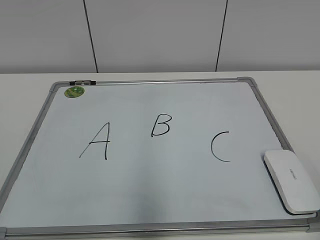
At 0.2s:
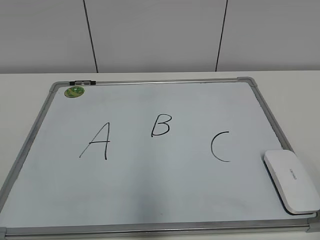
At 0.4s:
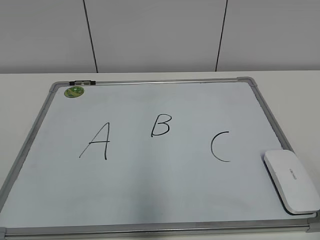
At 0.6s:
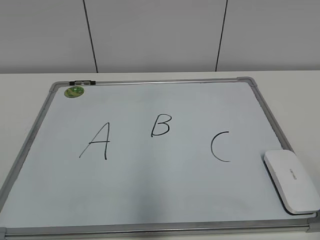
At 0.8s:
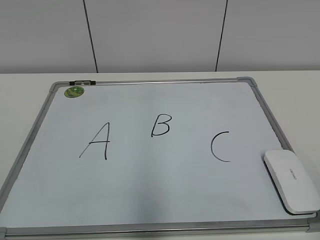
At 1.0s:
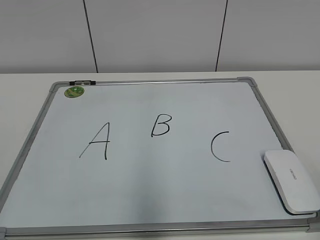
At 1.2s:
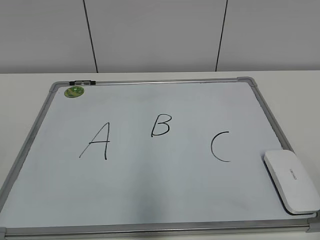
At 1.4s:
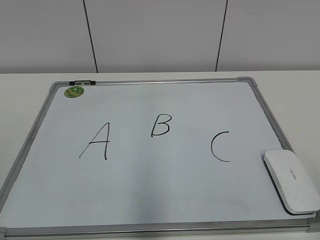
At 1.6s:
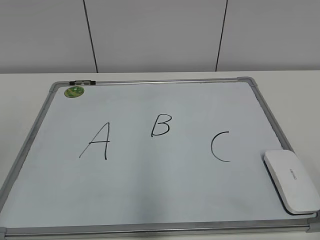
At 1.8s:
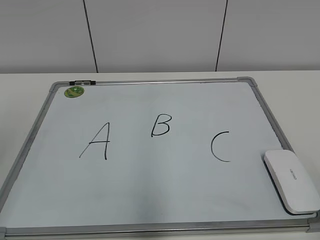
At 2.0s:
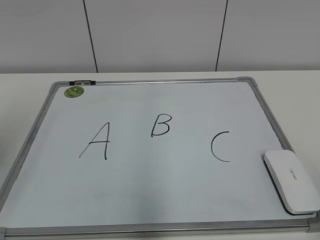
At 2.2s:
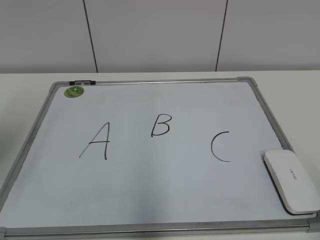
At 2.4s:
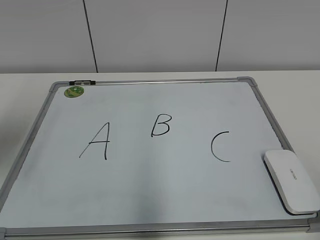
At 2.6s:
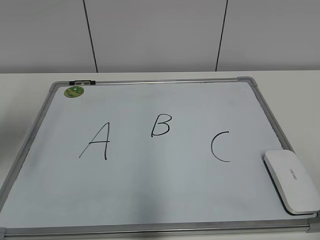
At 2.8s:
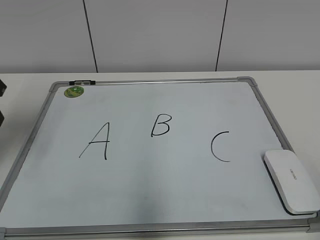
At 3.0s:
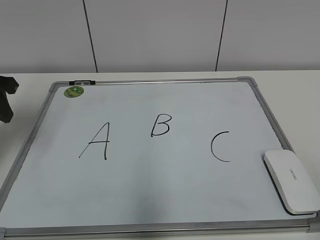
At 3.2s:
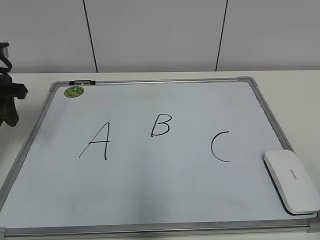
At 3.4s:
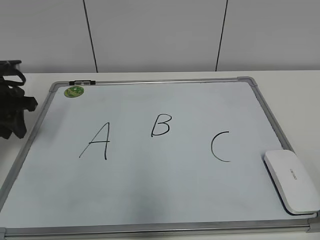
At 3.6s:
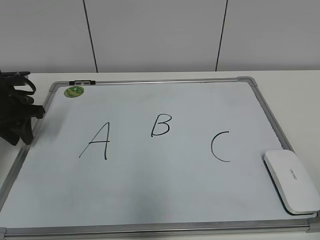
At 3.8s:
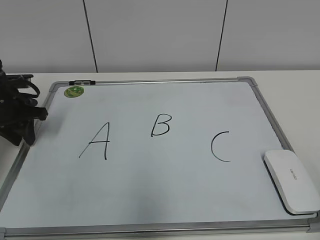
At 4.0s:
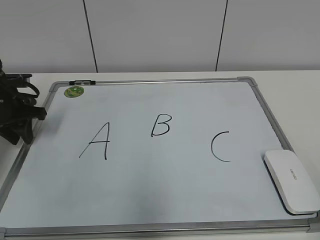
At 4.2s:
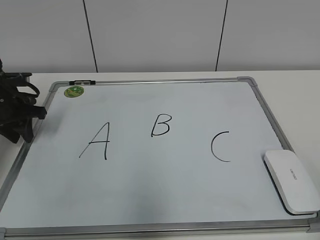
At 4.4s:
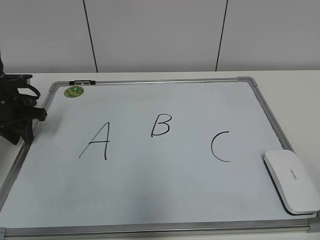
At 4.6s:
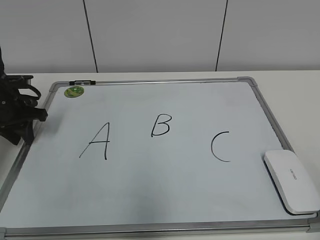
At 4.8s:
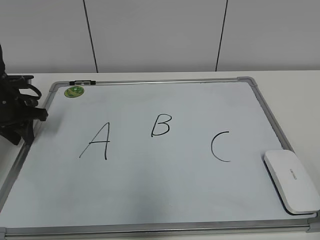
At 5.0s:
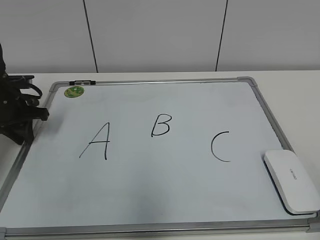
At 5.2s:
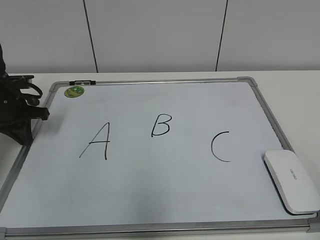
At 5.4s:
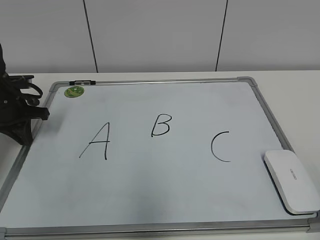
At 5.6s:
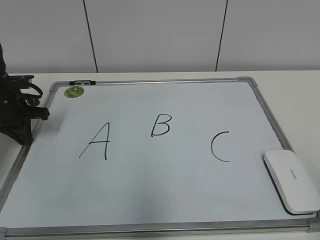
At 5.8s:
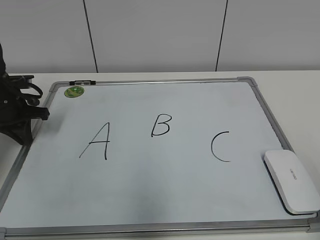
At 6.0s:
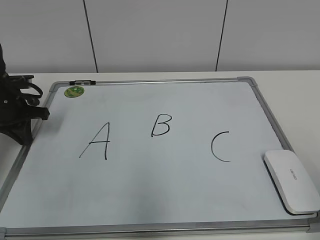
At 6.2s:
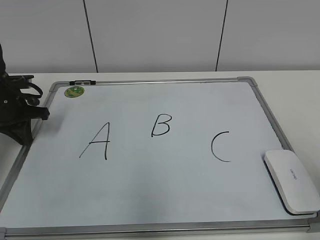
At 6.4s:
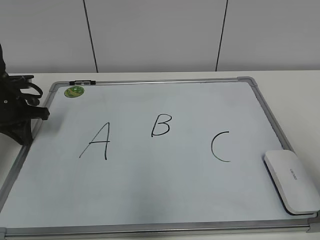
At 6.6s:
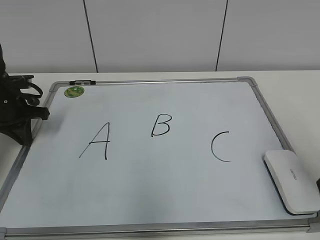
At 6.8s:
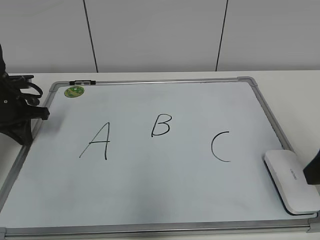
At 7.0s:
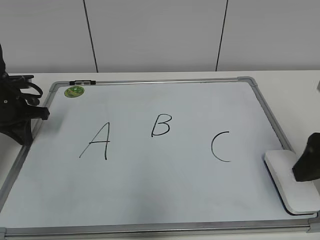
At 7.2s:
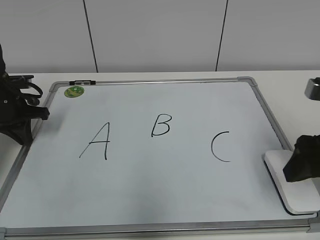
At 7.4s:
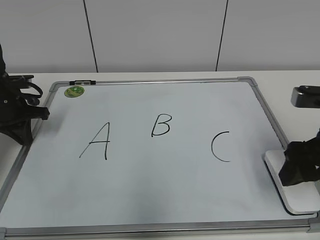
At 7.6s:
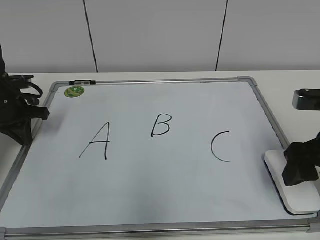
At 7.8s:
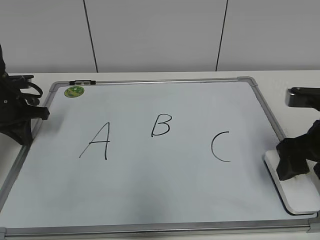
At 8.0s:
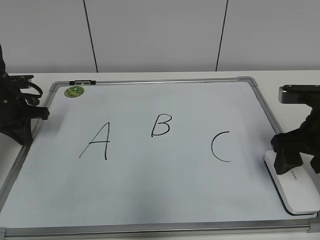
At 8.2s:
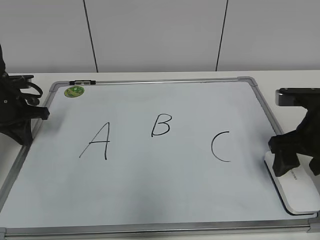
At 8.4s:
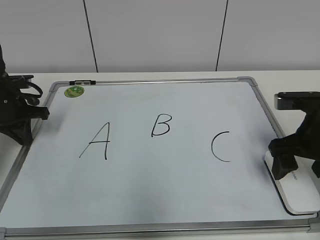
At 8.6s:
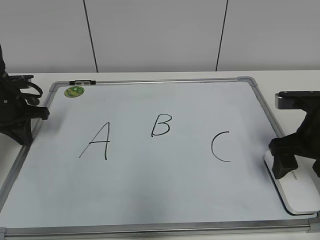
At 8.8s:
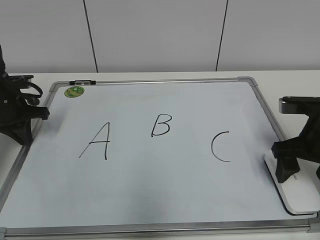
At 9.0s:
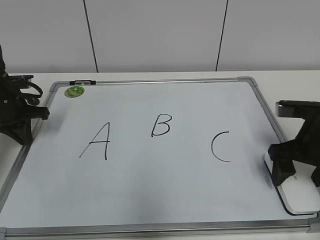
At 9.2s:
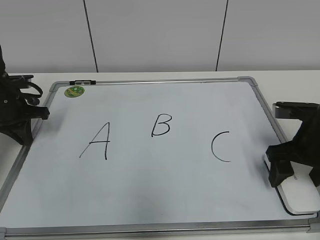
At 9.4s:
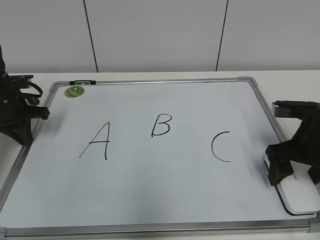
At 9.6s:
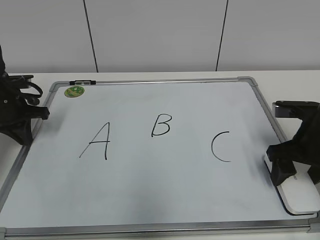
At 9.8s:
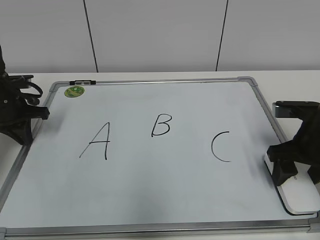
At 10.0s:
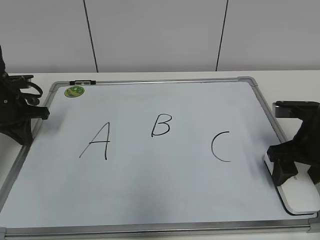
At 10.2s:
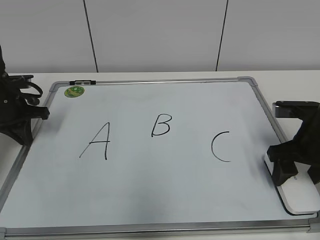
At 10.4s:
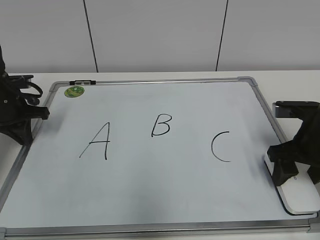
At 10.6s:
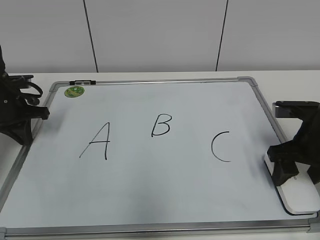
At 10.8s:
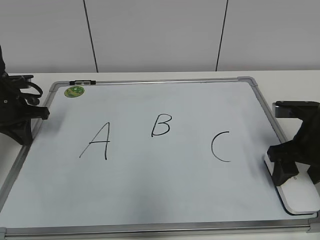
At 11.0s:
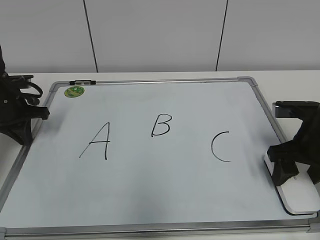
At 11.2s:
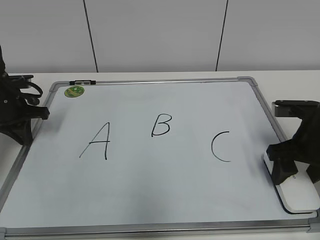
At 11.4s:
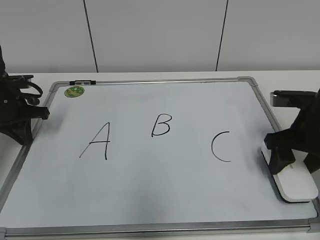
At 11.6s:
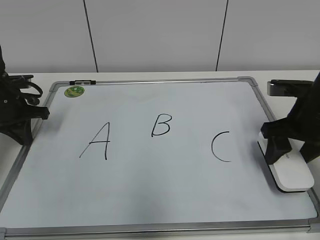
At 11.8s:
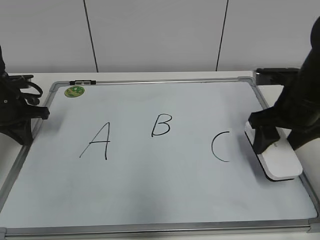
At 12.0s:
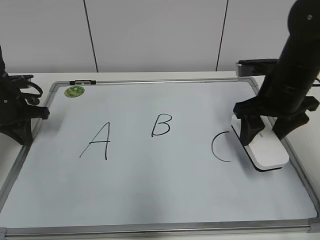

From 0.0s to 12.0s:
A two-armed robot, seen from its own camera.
Task of the whole recording: pick up the eraser on the blackboard and erase the letter "B".
Step, from 0.0s to 5.4s: Hold the drawing board steady with your left hand.
Step, from 5.6s to 10.4s: Grab the eraser with your right hand.
From 1.6s to 3.0s: The left gripper moves forward, some 25 cm.
From 3.0s to 4.4s: The left gripper travels downward and forward by about 15 cm.
From 4.4s to 6.0s: The left gripper closes its fingers.
From 6.0s to 7.6s: The right gripper heads forward, covering about 15 cm.
From 7.6s to 9.0s: The right gripper travels forward by approximately 5 cm, and opens up.
From 9.0s to 10.4s: The right gripper closes up.
From 10.4s to 12.0s: The right gripper goes some 10 cm upward, to the left and forward.

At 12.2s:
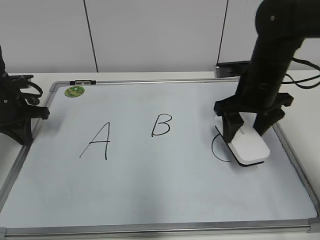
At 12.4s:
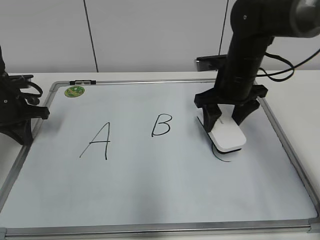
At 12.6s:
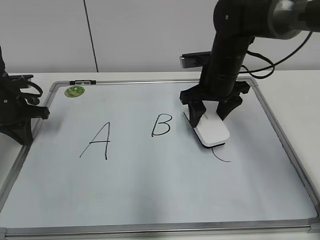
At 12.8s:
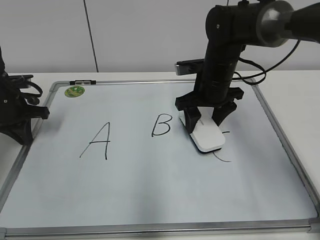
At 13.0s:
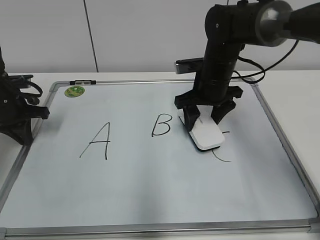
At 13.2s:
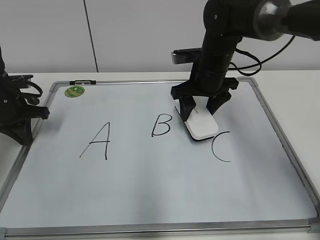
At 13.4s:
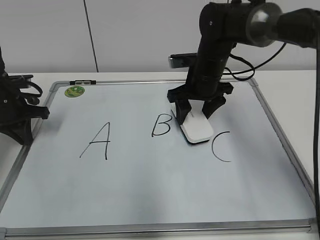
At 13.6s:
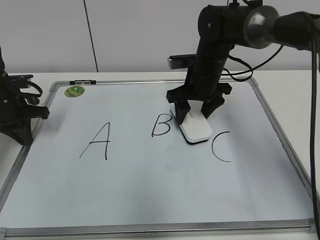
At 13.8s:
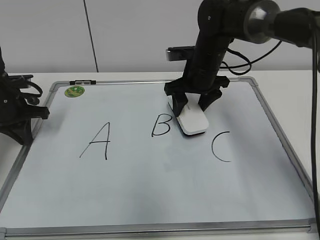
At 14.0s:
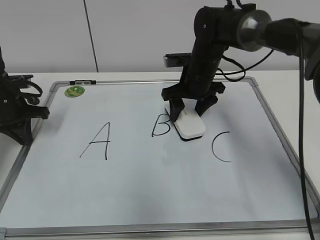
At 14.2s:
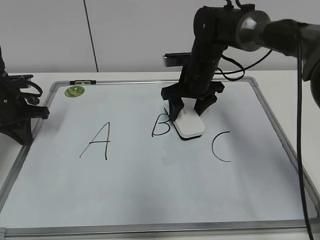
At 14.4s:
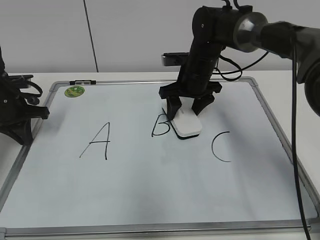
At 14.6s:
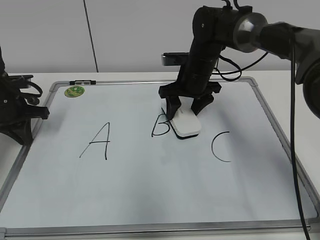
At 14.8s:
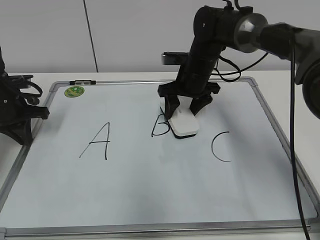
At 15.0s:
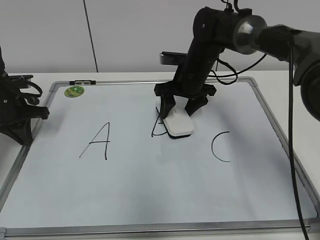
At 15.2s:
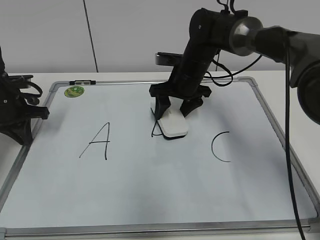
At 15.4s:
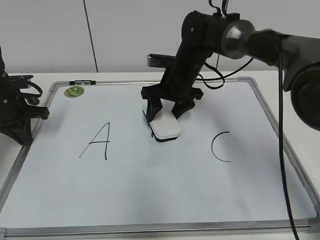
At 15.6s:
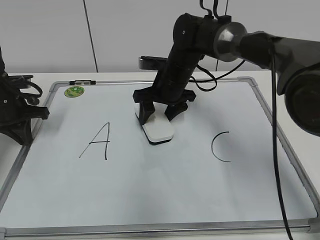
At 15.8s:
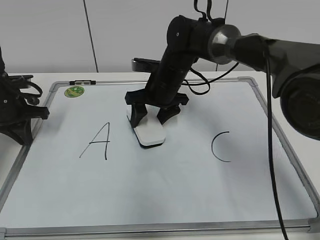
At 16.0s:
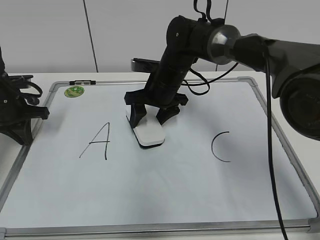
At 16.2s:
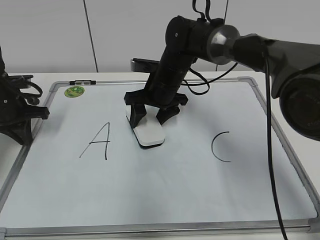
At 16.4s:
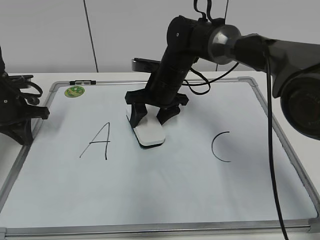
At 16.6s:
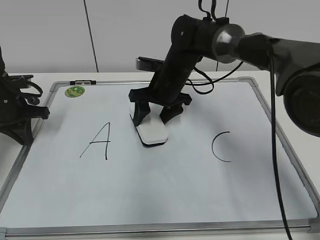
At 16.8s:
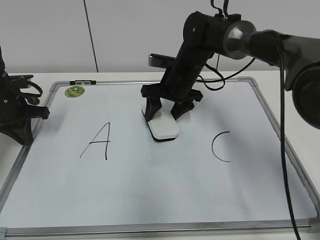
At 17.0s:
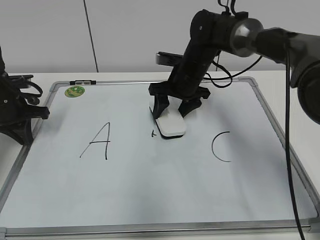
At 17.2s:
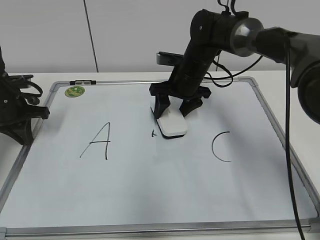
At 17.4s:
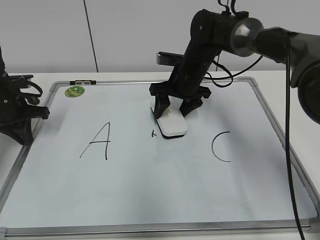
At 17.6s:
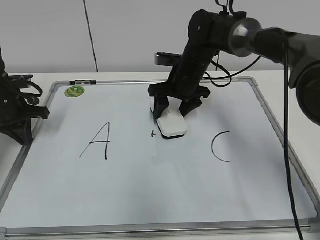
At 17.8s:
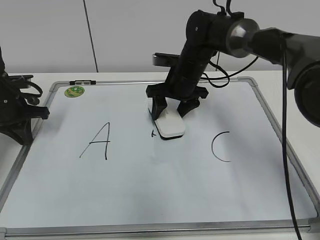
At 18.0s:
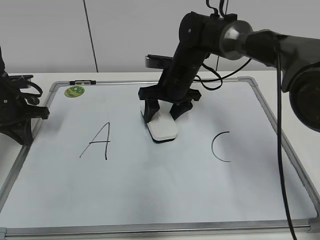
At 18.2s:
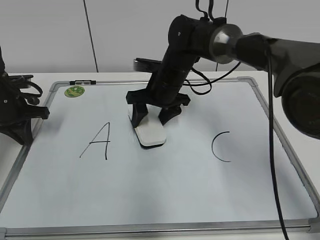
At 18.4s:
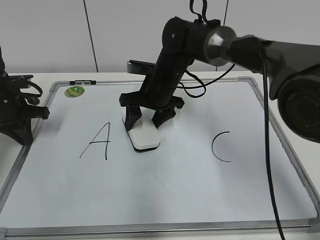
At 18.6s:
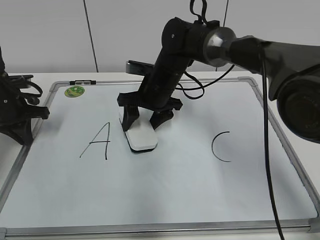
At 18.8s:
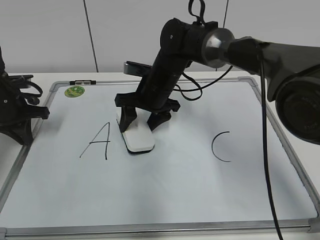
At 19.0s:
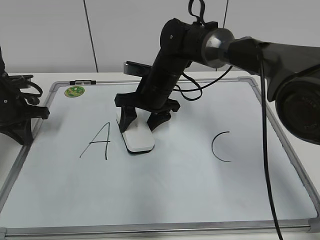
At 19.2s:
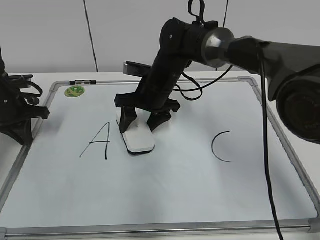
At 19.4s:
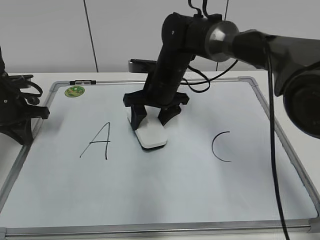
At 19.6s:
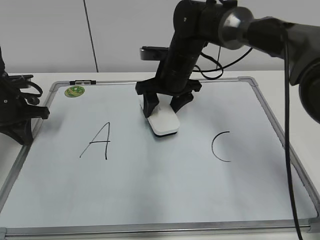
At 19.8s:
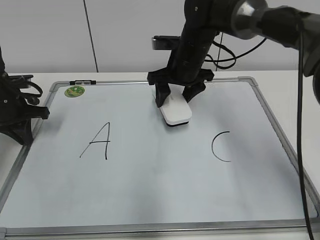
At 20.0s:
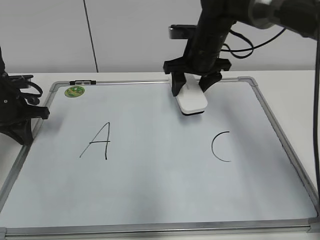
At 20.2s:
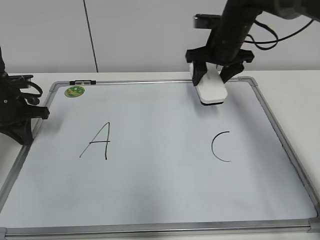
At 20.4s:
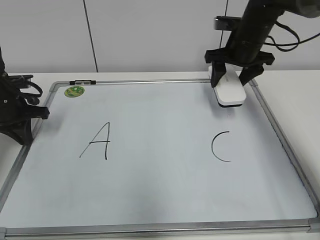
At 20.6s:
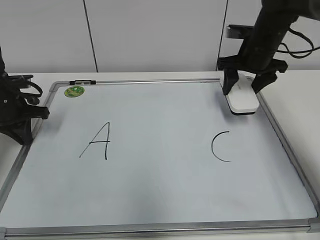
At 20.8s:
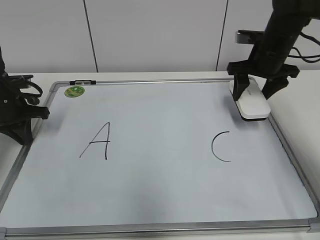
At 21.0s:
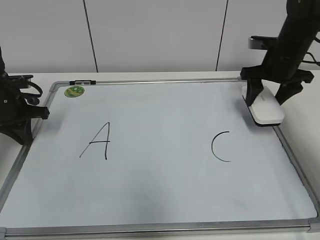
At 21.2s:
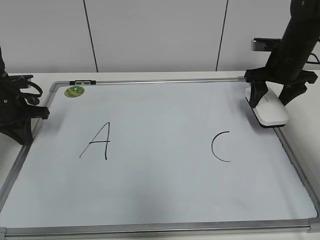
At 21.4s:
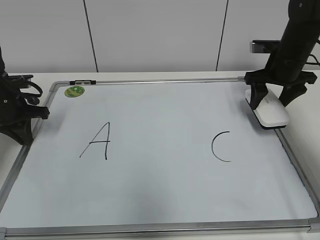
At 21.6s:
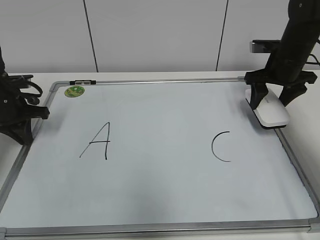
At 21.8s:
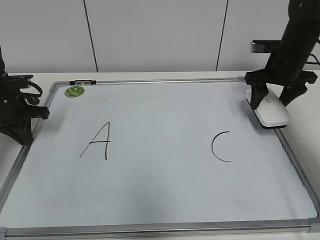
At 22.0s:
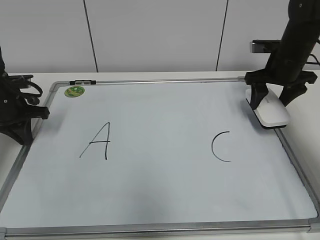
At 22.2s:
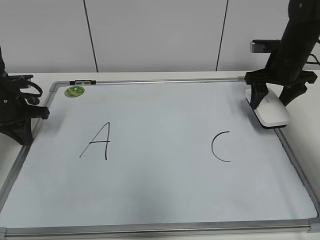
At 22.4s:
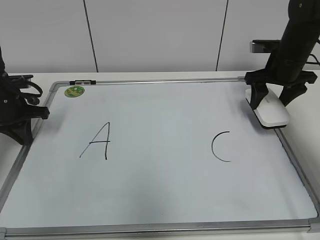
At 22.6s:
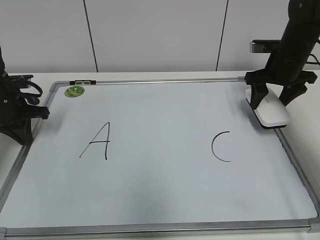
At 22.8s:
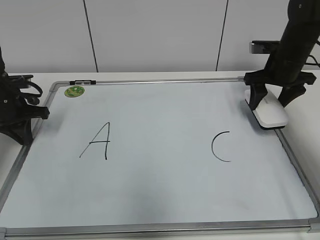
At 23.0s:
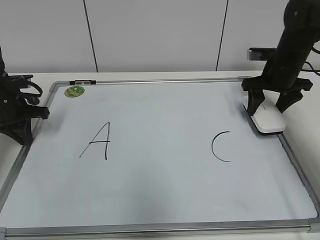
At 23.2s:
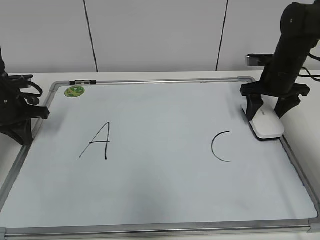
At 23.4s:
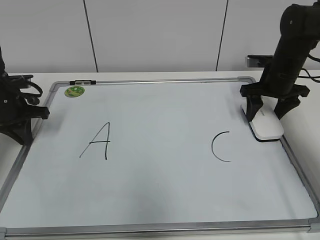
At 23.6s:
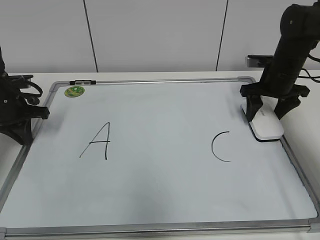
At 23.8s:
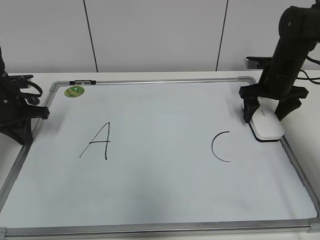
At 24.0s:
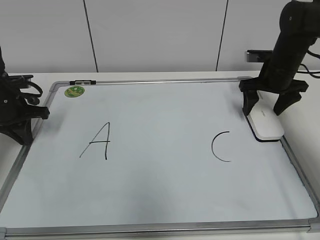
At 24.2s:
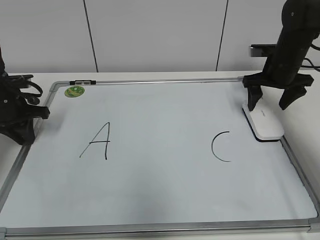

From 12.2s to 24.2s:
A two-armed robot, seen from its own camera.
Task of the whole recording: pick up the eraser on the blackboard and erase the letter "B".
Step, from 12.2s to 19.4s: Erase the letter B with your right hand.
Step, from 19.8s to 23.8s: Put down the eraser with your right hand.
From 12.2s to 13.8s: The right gripper goes approximately 10 cm forward and to the left.
From 13.8s to 15.2s: The grippers make only small movements.
From 15.2s to 18.2s: The grippers stay close to where they were, moving slightly.
From 18.2s to 19.8s: The right gripper shifts by some 5 cm.
From 19.8s to 21.2s: The right gripper goes roughly 20 cm to the right.
From 21.2s to 22.6s: The two grippers keep their place.
From 22.6s to 24.2s: The right gripper opens.
